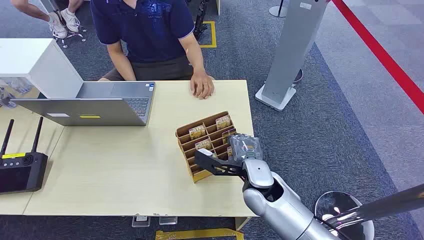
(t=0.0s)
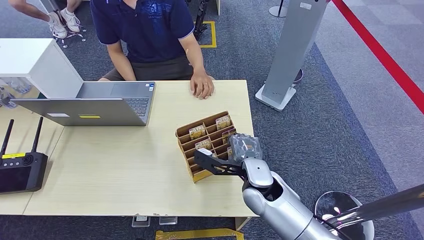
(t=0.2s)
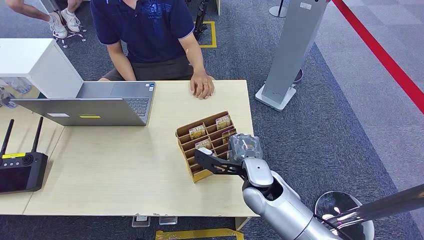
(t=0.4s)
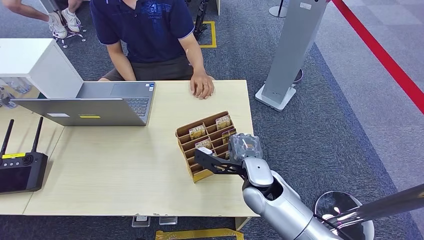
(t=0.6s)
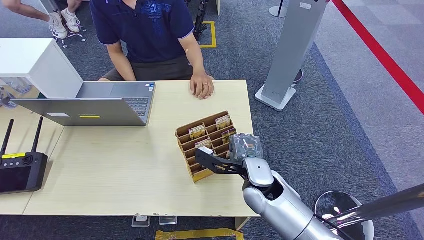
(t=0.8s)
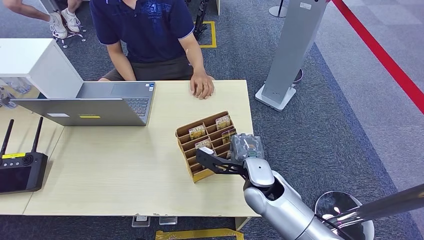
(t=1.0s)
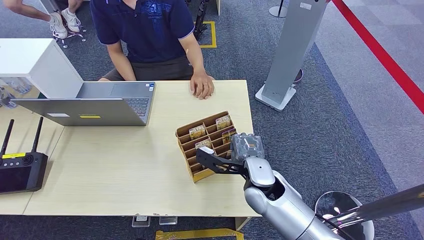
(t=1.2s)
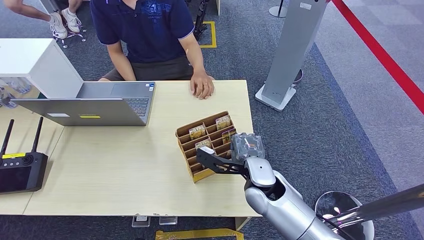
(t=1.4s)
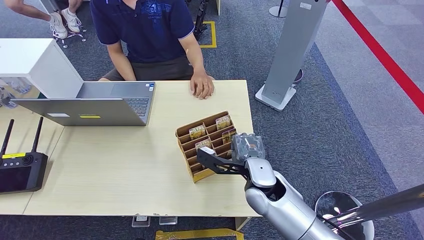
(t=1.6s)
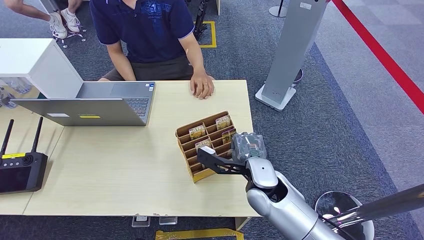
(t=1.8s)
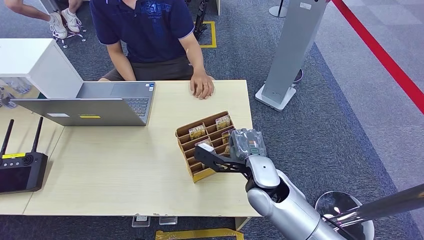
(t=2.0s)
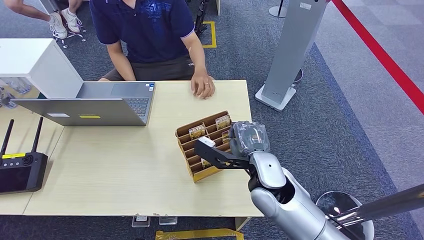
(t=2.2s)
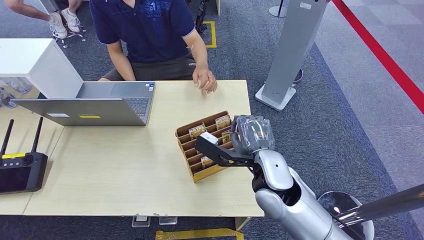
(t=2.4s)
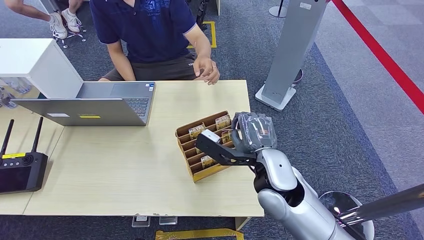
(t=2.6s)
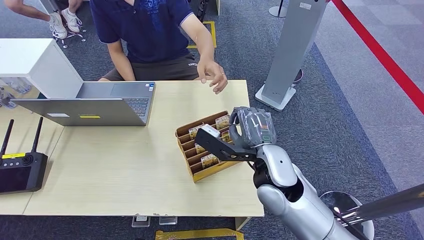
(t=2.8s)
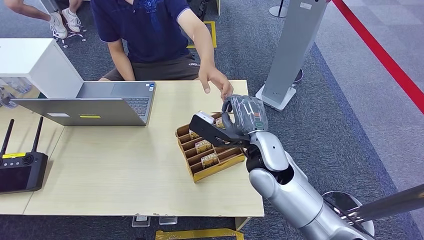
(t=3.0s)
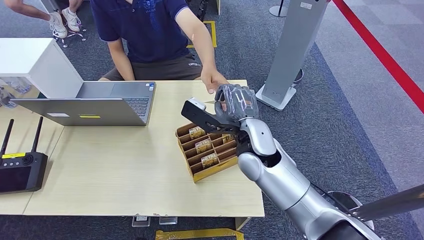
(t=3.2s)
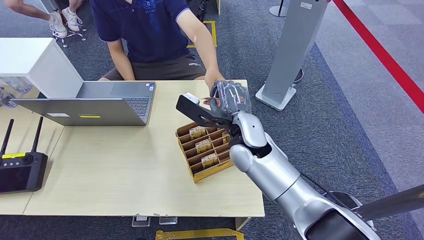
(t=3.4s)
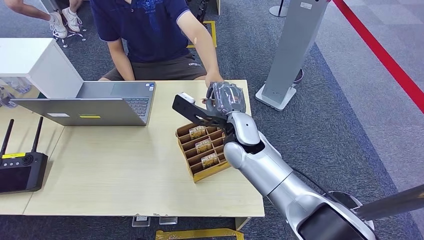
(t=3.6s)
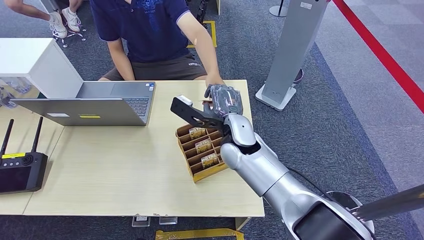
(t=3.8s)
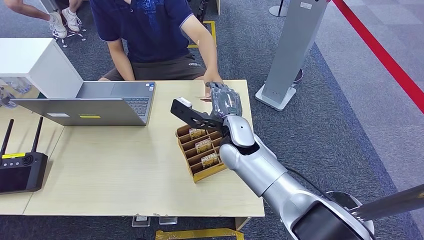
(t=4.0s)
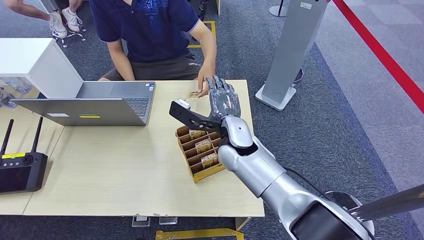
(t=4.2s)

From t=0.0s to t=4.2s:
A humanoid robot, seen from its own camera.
Step, from t=3.0s to t=4.2s: Hand the key card to the target.
From t=1.4s to t=2.8s: The right hand heads upward, covering roughly 10 cm.
From t=2.8s to t=4.2s: The right hand heads forward and to the left, covering roughly 10 cm.
